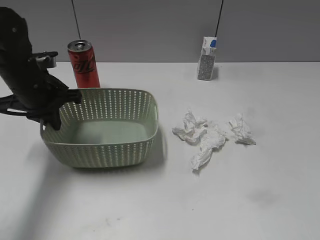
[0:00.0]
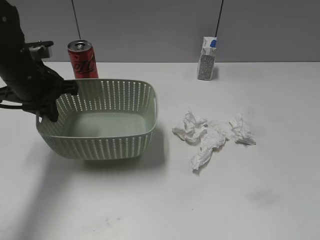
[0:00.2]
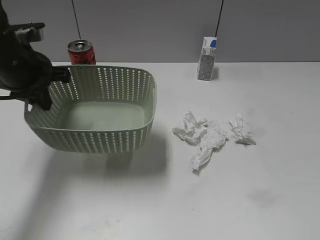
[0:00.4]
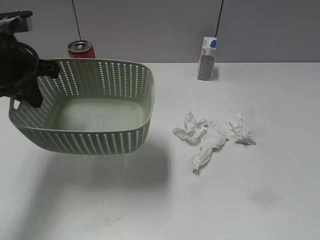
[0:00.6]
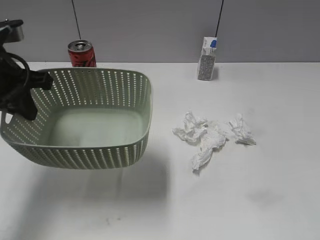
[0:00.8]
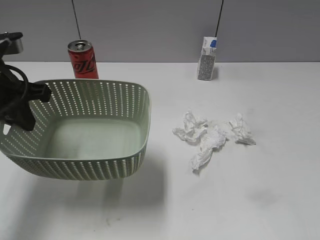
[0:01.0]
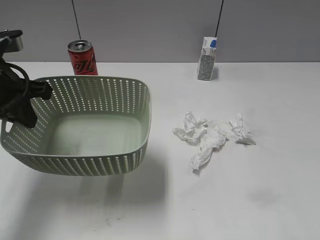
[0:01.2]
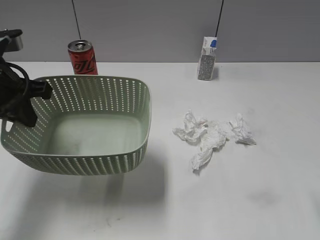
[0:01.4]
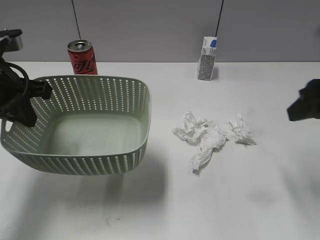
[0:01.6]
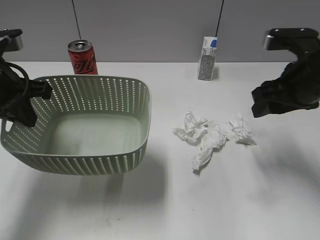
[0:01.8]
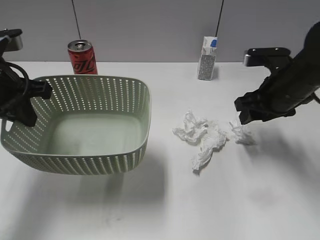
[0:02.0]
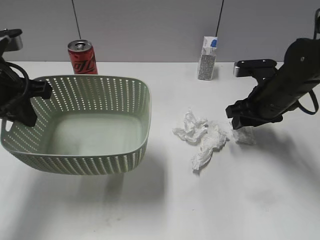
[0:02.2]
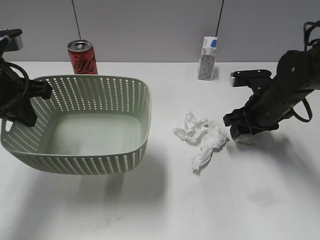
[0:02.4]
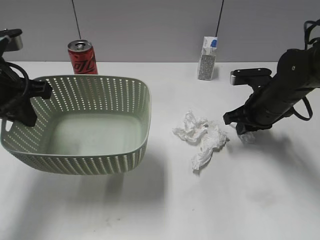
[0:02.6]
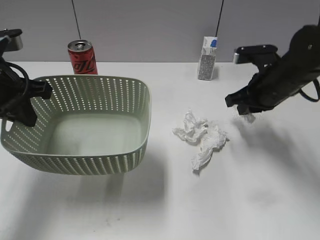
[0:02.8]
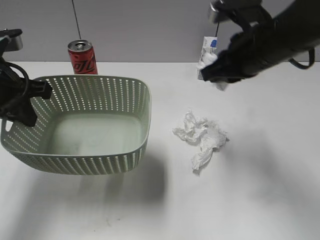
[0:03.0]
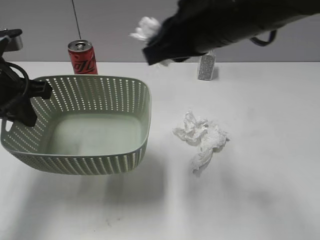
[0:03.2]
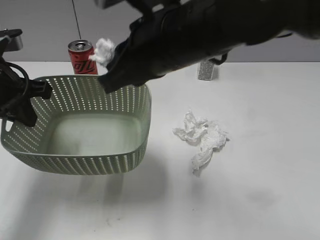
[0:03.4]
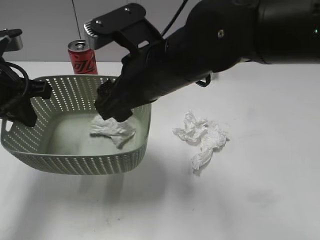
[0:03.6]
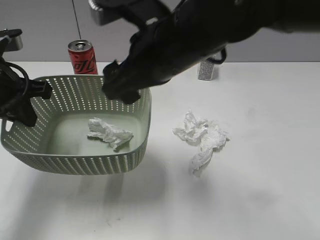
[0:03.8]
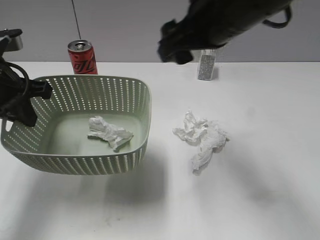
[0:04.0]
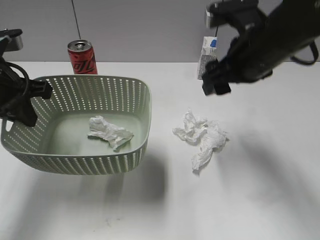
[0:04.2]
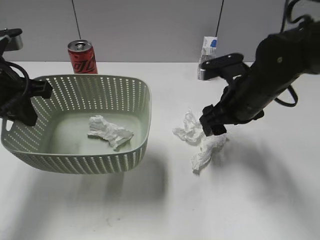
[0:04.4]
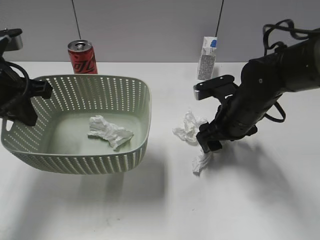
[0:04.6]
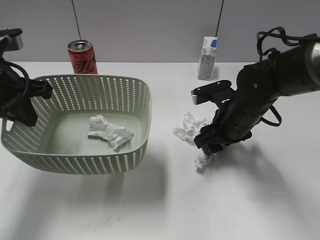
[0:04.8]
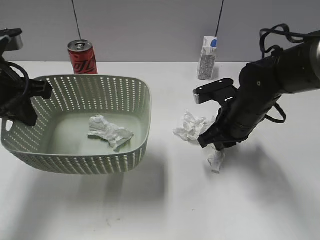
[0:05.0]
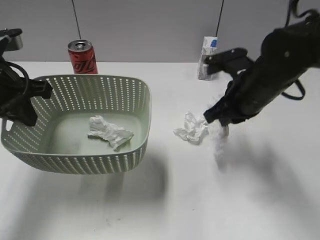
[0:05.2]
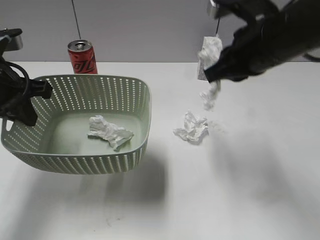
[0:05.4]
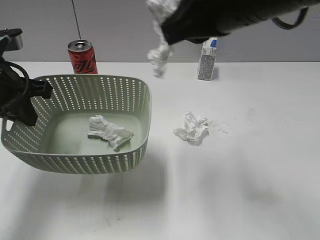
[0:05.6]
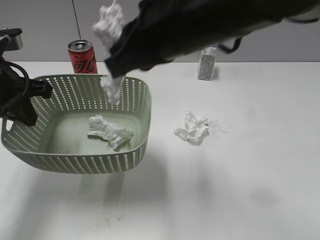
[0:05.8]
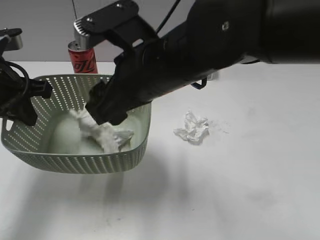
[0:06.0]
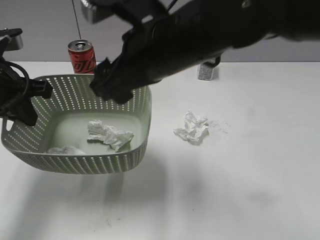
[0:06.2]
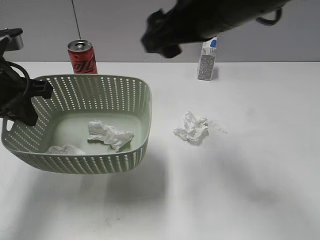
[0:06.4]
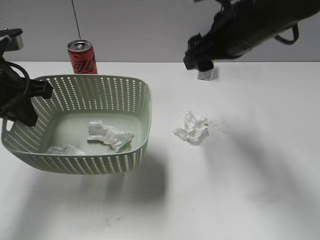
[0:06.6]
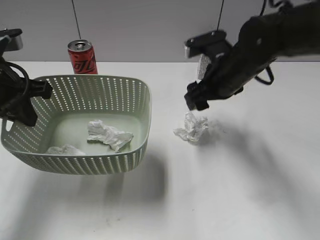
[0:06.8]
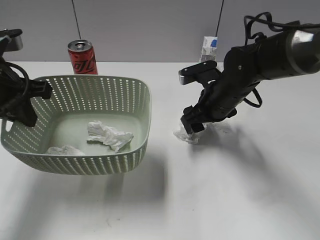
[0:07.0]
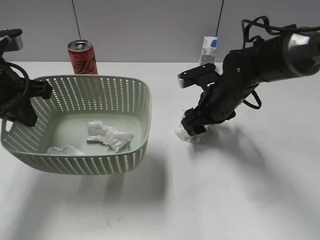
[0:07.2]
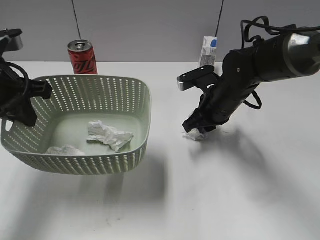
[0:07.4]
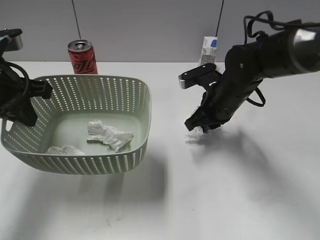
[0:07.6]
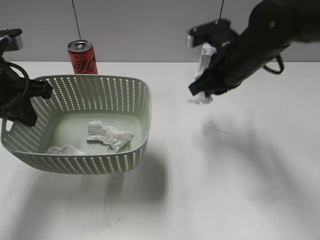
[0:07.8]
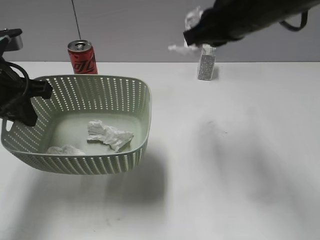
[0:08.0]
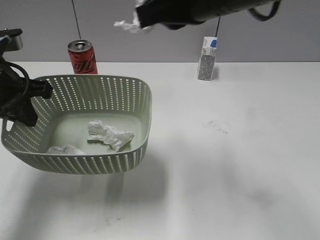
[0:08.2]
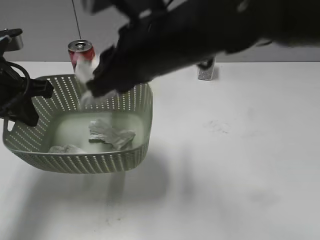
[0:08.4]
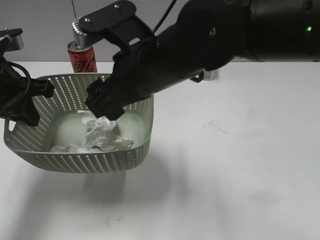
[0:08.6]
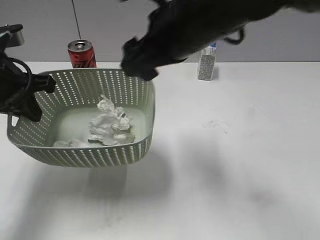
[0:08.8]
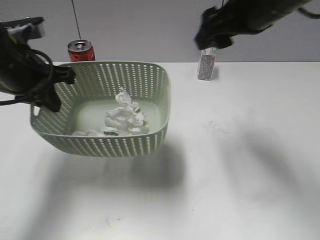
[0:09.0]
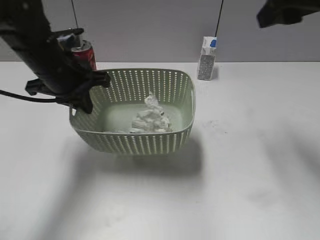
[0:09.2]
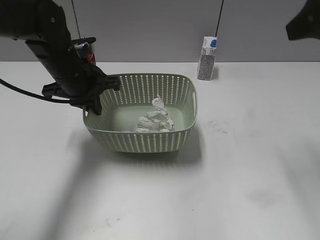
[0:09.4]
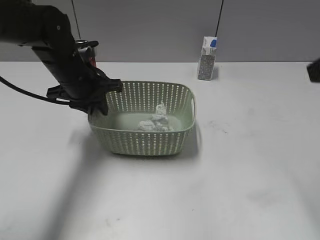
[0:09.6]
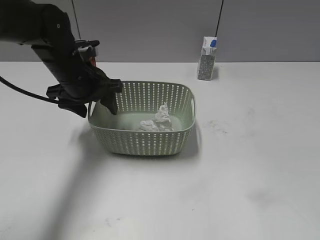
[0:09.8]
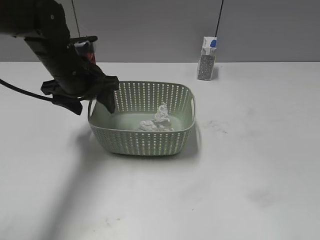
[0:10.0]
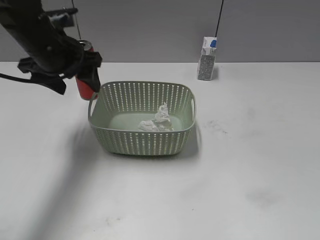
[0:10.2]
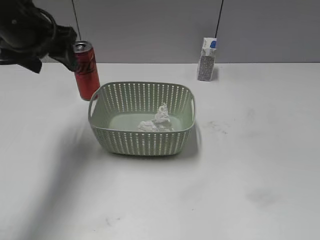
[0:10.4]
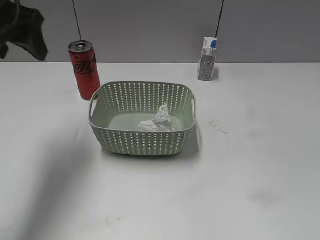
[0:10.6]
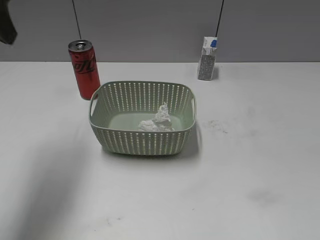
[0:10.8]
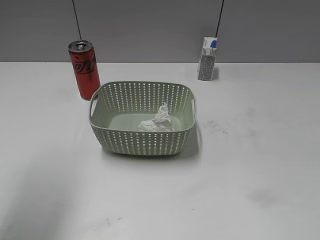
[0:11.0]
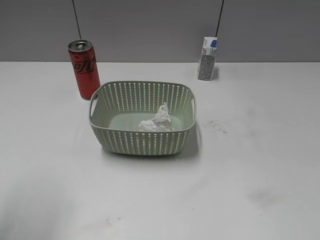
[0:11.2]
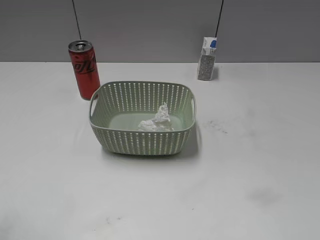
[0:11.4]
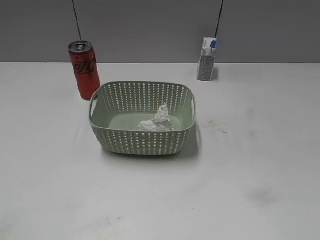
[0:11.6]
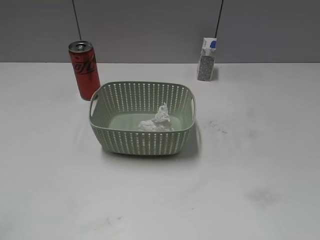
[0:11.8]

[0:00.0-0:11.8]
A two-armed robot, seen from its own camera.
Step, 0:00.2 to 0:00.4: Lift the basket with left gripper.
Step, 0:00.6 to 0:02.8: Grasp the waste paper with right gripper.
Step, 0:03.0 to 0:03.6: Place the waste paper in the basket with right gripper.
Step, 0:03.8 to 0:05.0: Grasp the waste paper with right gripper.
Step, 0:05.2 to 0:06.0: Place the waste paper in the basket with right gripper.
Step, 0:06.2 to 0:07.6: Grasp the waste paper with right gripper.
Step, 0:07.8 to 0:08.6: Place the waste paper in the basket with right gripper.
Step, 0:08.8 to 0:09.8: Place the basket on the table with left gripper.
0:00.0 to 0:01.4: The left gripper moves backward and upward, some 10 cm. Meanwhile the right gripper heads forward, covering some 15 cm.
0:01.4 to 0:03.0: The right gripper shifts approximately 20 cm forward and to the left, and closes.
0:03.0 to 0:04.4: The right gripper shifts approximately 5 cm downward, travels to the left and back again, roughly 15 cm each way, and opens up.
0:04.4 to 0:06.0: The right gripper swings up and down, approximately 20 cm each way, with 2 reversals, and closes, then reopens.
0:06.0 to 0:07.4: The right gripper heads downward, to the right and forward, covering about 20 cm, and closes its fingers.
0:07.4 to 0:08.8: The right gripper swings up and down, some 20 cm each way, with 2 reversals, and opens.
0:08.8 to 0:10.4: The left gripper shifts some 5 cm forward, and opens its fingers. Meanwhile the right gripper travels to the right and backward by about 40 cm.
0:10.4 to 0:11.8: The left gripper moves backward, roughly 35 cm.

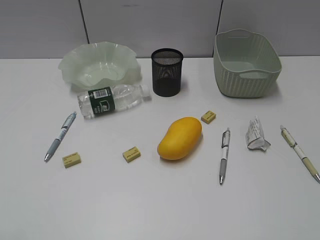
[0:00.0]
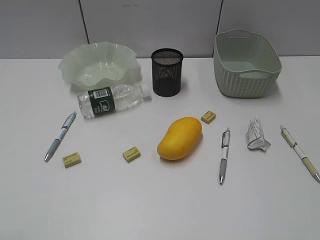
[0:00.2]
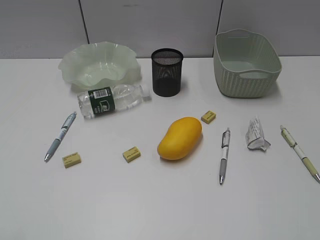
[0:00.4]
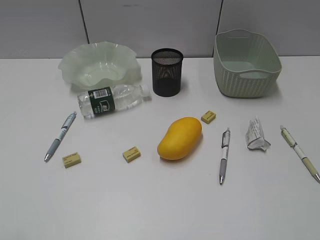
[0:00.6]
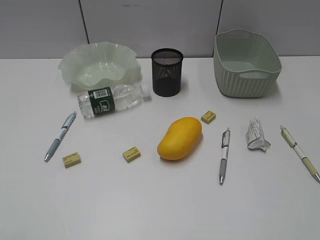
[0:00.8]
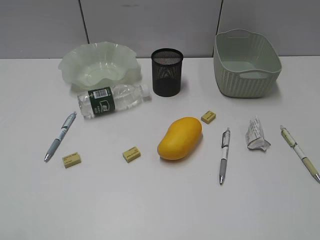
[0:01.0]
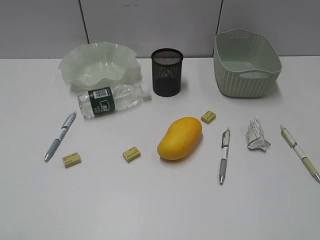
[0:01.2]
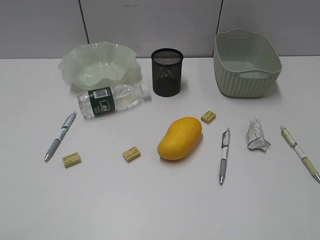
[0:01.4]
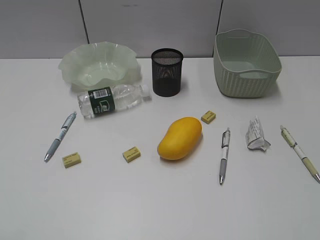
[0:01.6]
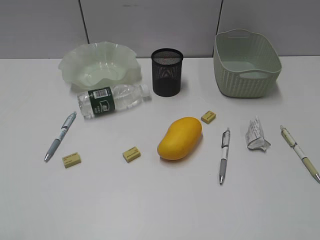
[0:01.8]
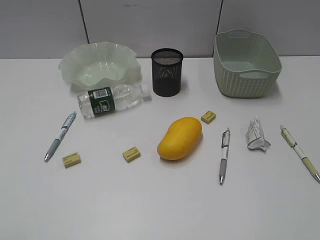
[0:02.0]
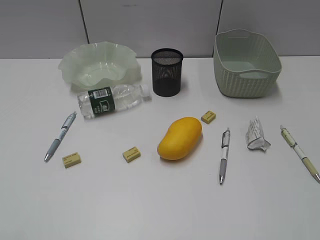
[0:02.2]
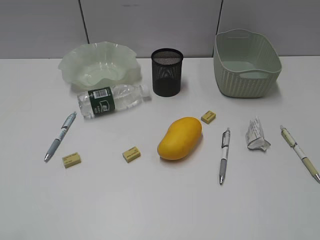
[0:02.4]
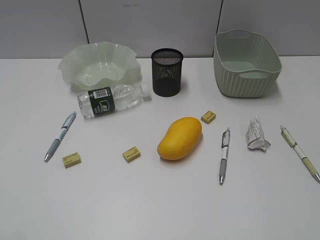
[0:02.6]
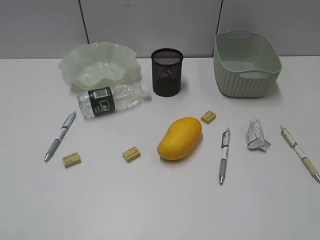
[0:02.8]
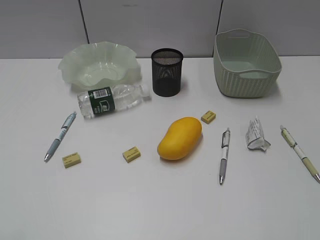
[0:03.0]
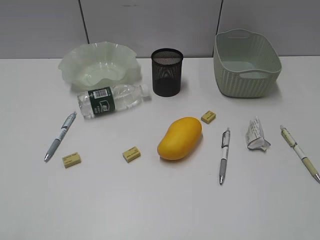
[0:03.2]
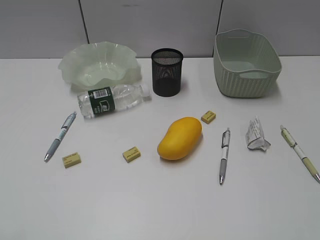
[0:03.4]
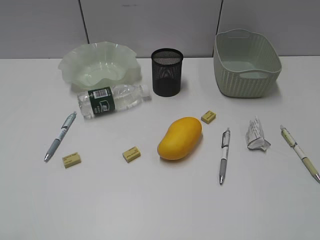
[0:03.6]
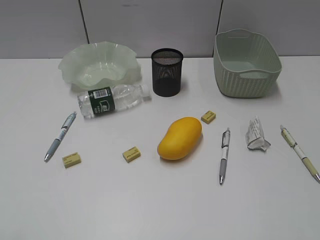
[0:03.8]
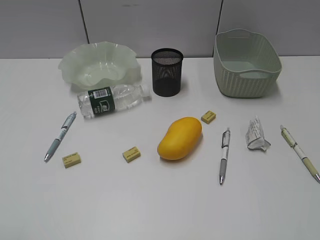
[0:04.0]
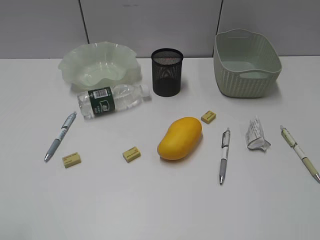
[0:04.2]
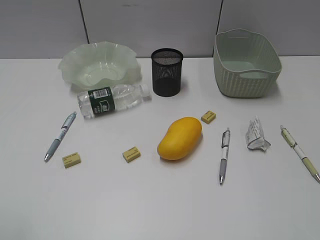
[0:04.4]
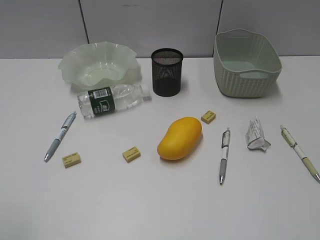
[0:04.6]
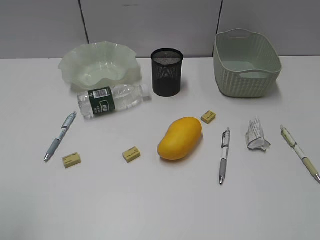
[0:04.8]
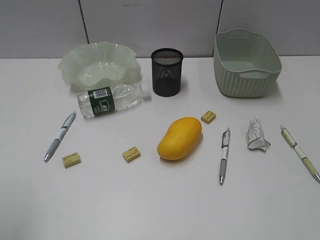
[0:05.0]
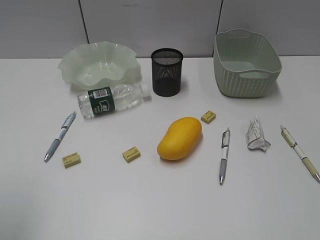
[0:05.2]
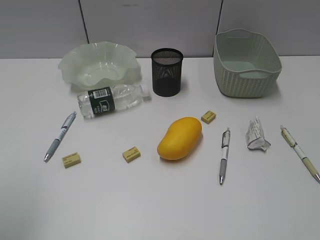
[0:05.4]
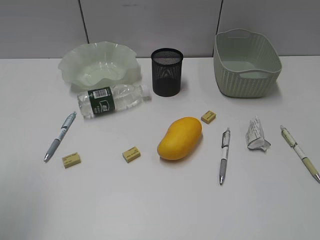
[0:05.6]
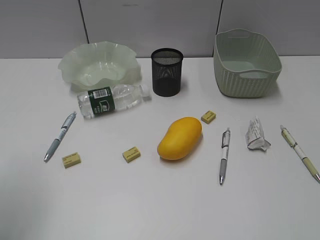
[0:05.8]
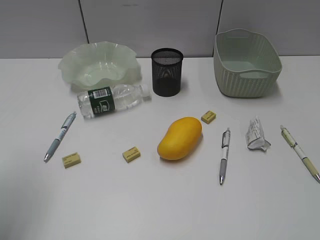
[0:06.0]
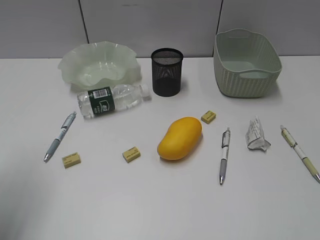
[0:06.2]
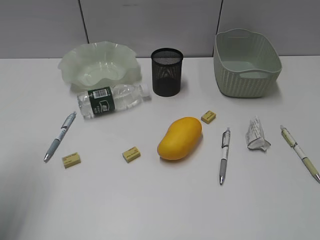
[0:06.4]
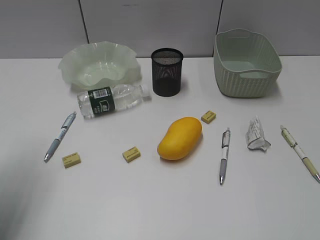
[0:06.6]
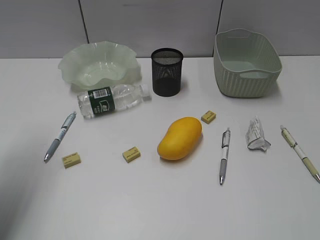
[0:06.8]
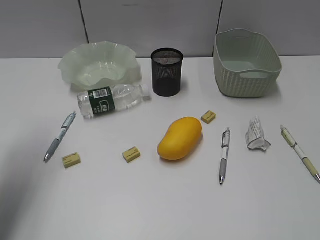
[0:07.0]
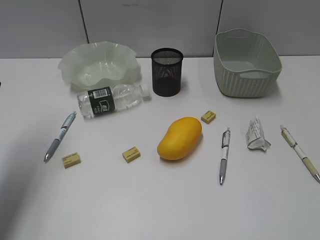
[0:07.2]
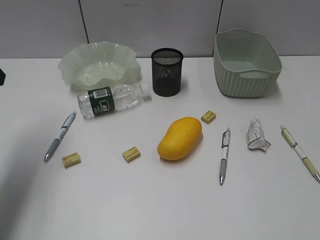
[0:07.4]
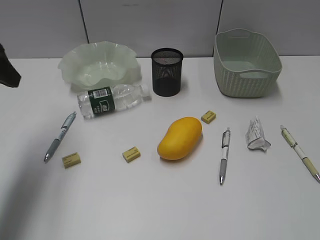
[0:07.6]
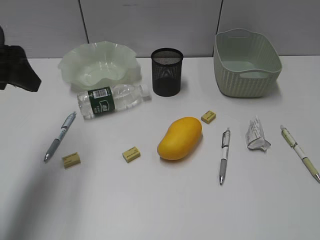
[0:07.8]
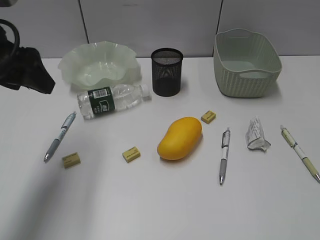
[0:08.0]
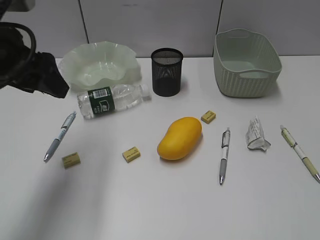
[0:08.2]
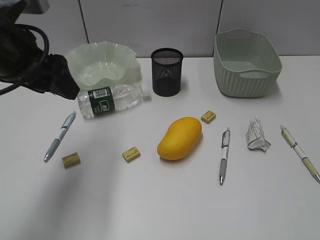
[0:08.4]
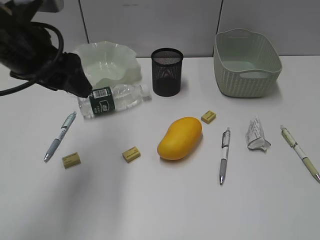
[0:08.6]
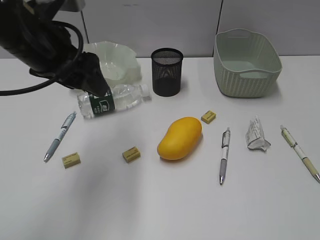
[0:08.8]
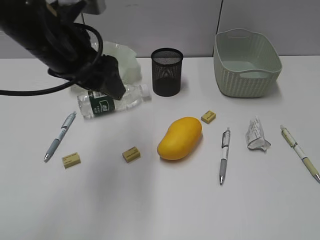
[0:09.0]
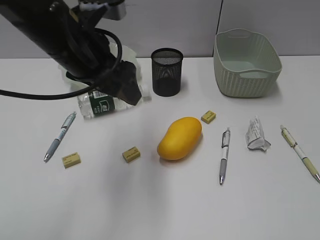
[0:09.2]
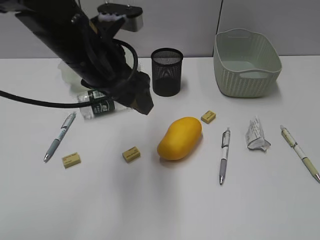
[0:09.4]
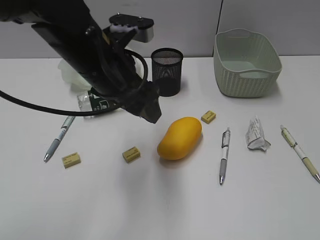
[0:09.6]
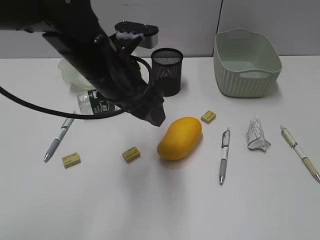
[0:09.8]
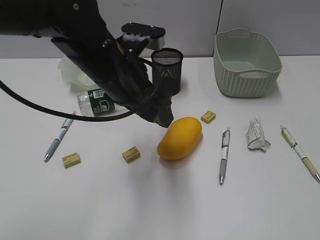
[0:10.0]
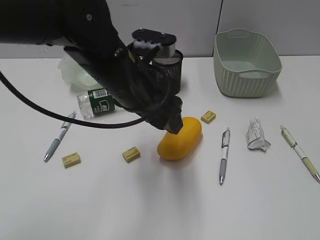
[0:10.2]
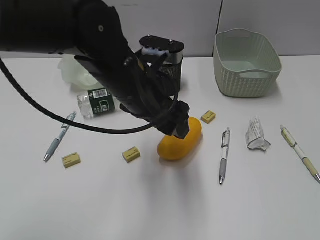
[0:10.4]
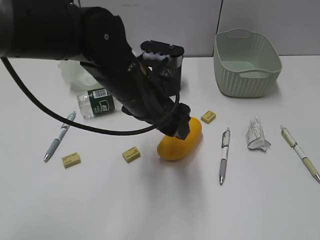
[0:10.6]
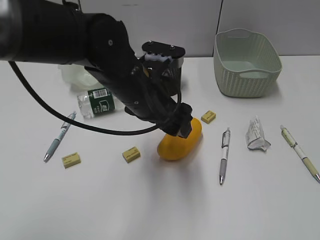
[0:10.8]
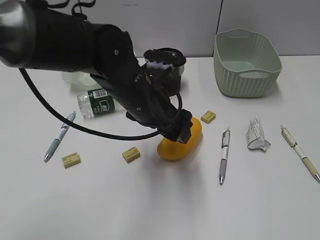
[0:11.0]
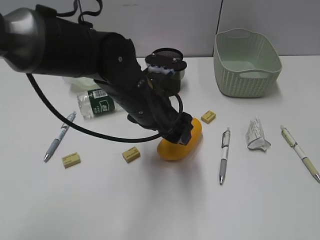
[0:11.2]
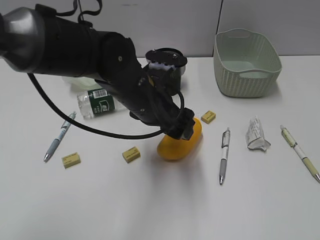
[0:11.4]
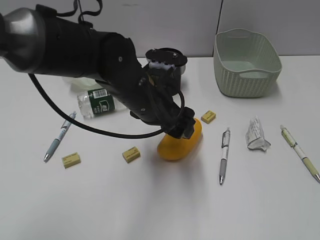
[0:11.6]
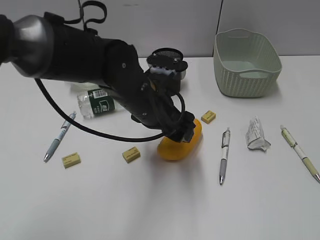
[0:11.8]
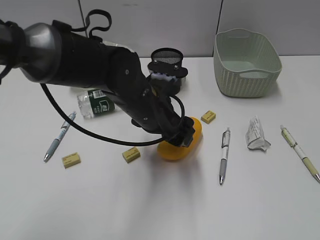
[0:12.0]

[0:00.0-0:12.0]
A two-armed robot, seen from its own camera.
0:01.6 to 0:03.0: Neither gripper changes place.
0:04.4 to 0:06.0: The left gripper goes roughly 15 cm forward.
0:06.0 to 0:07.6: The left gripper travels forward by approximately 10 cm.
0:07.6 to 0:09.0: The left gripper travels to the right by approximately 15 cm.
0:09.0 to 0:10.4: The left gripper goes about 10 cm to the right and downward.
0:10.4 to 0:12.0: The left gripper moves downward, about 5 cm.
